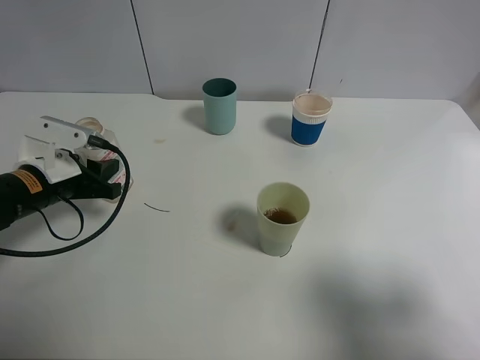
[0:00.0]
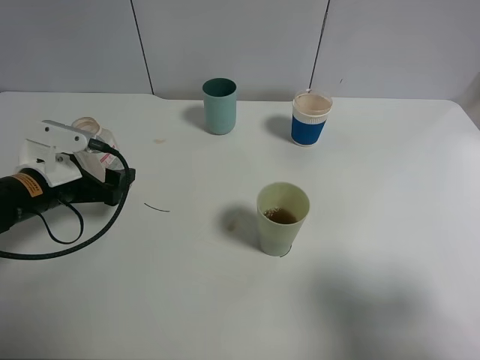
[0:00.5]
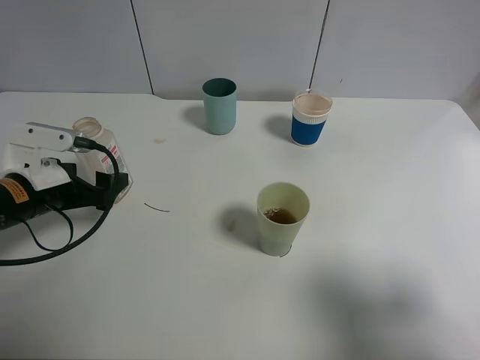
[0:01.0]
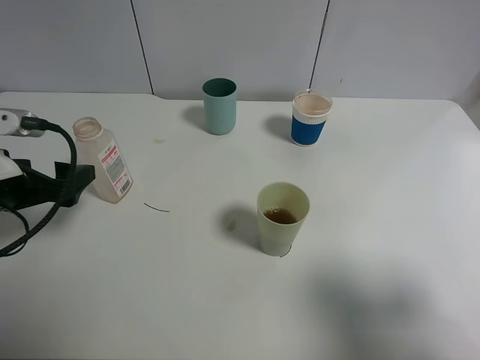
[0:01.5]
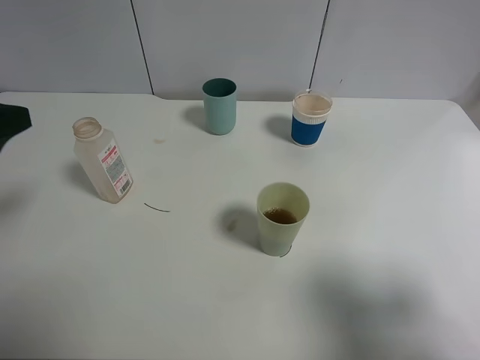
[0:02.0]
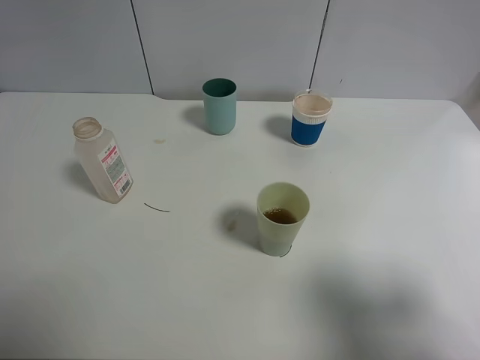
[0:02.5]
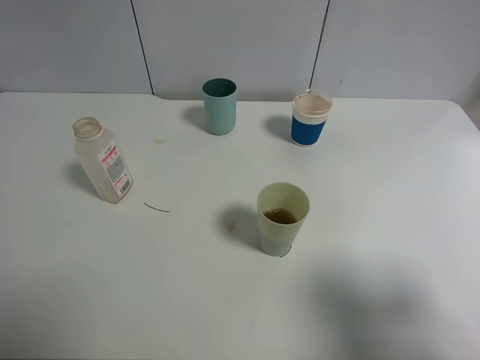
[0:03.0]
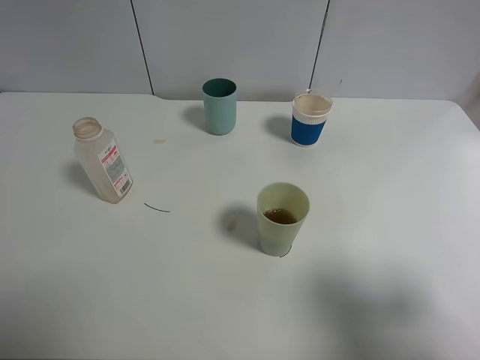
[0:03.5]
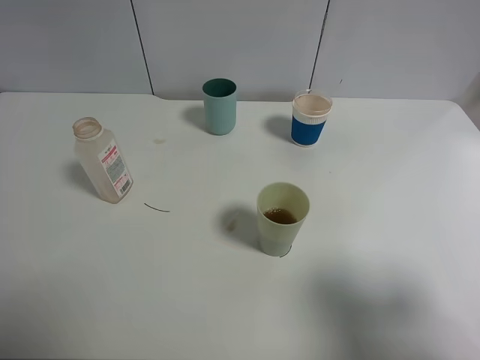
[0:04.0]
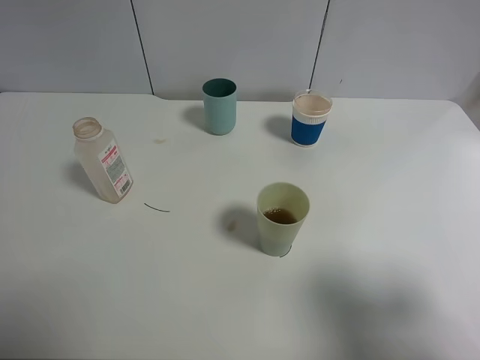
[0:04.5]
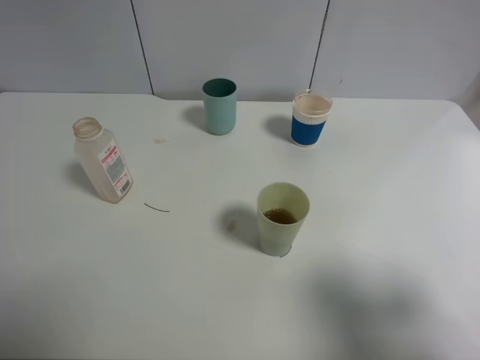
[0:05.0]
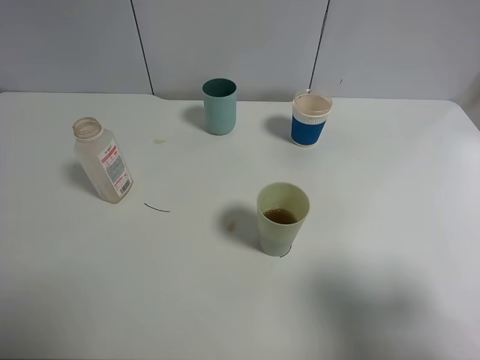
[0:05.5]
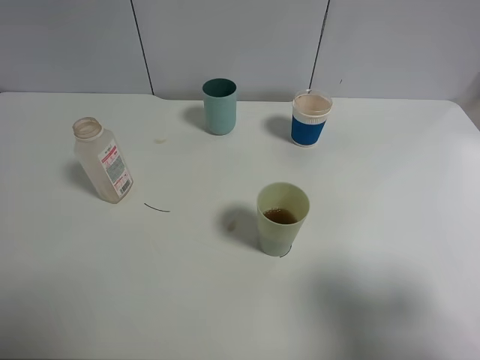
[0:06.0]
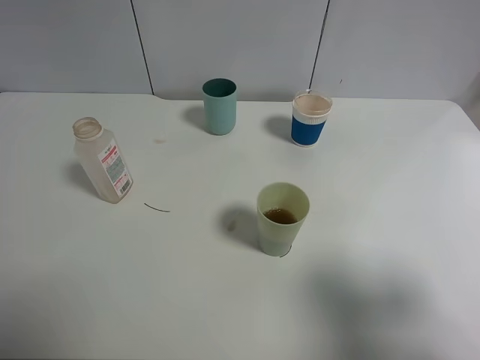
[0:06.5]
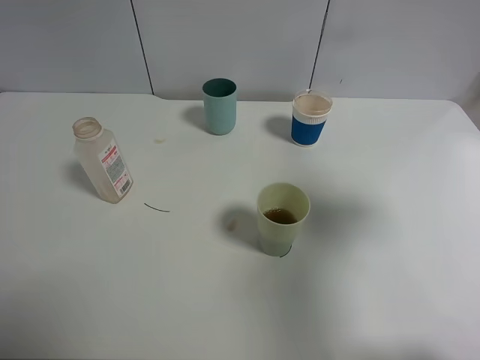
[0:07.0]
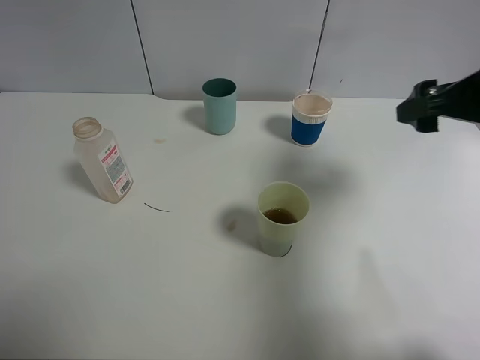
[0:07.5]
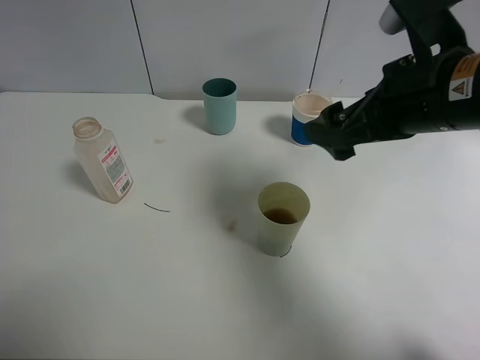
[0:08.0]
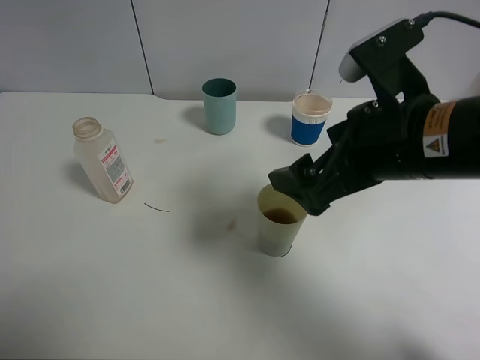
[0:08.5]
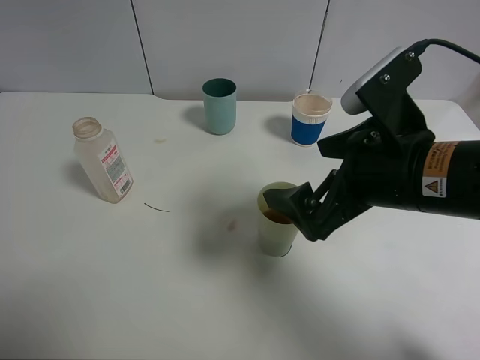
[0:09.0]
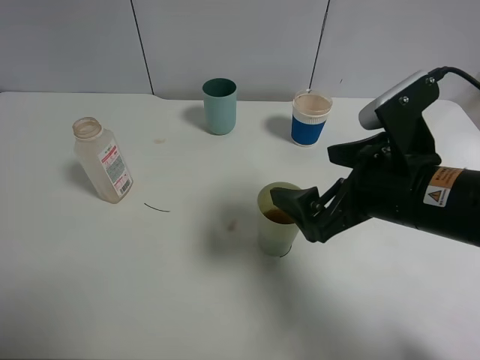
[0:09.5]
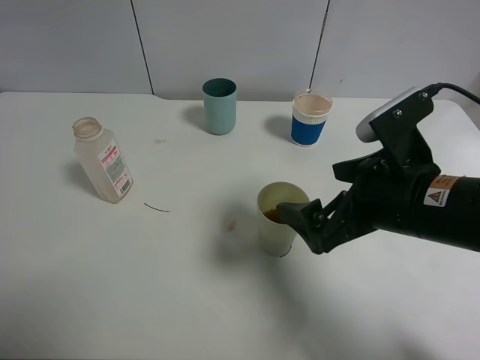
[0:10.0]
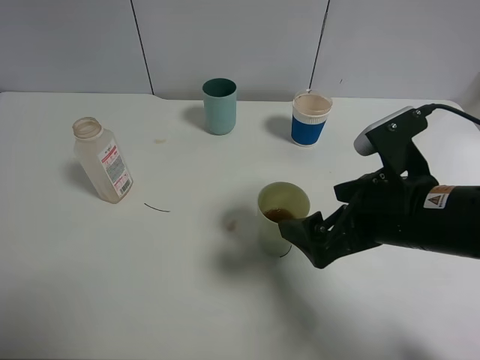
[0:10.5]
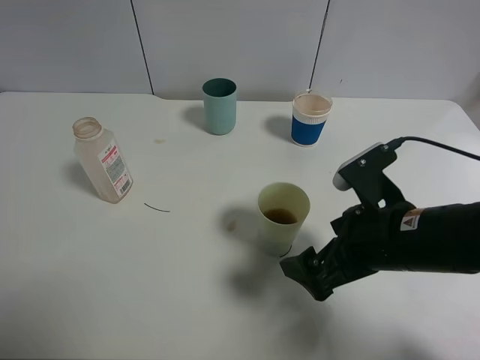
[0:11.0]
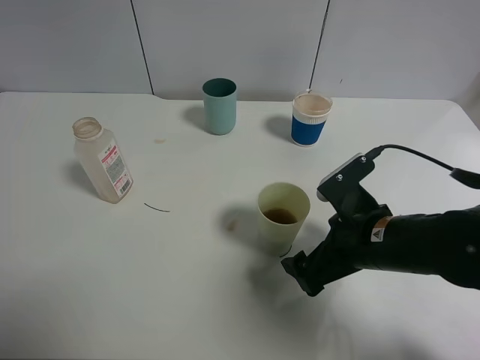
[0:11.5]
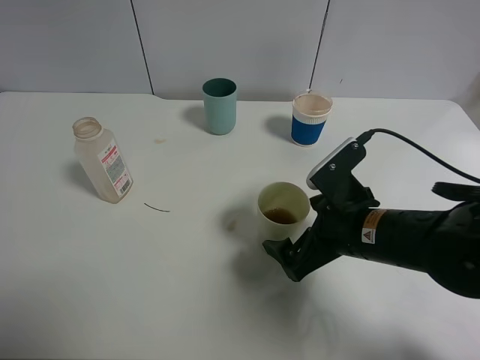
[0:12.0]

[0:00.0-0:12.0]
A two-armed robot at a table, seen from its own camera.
Task of the whole recording: use a clamp to hold the bottle of the drink, pour the beverage into a random cup, then clamp the cup containing the drink and pour the drink into another random cup.
0:00.0 to 0:02.0: The left gripper heads upward and backward, covering some 20 cm, and opens its fingers.
0:02.0 to 0:04.0: The left gripper moves backward, about 15 cm.
0:04.0 to 0:06.0: Both grippers stay about where they are.
0:06.0 to 0:08.0: The right gripper shifts some 25 cm forward and to the left.
0:08.0 to 0:10.0: The right gripper is displaced downward and backward by approximately 10 cm.
0:10.0 to 0:12.0: The right gripper goes approximately 5 cm downward.

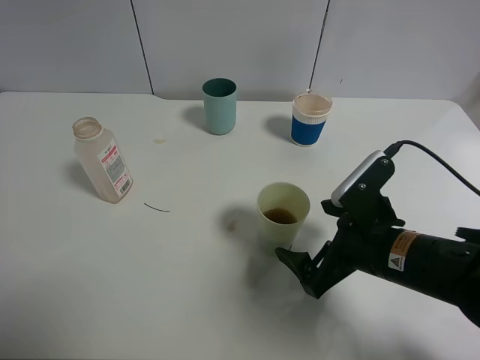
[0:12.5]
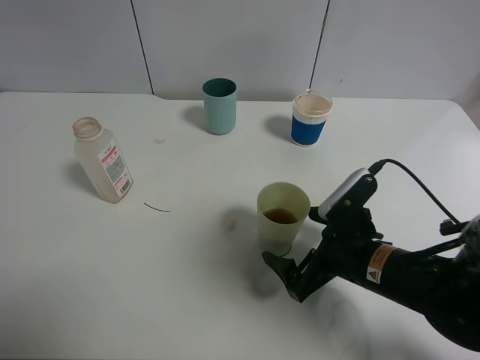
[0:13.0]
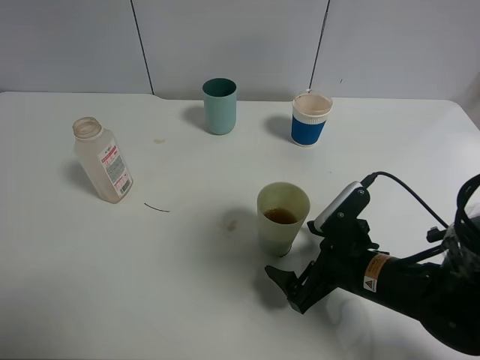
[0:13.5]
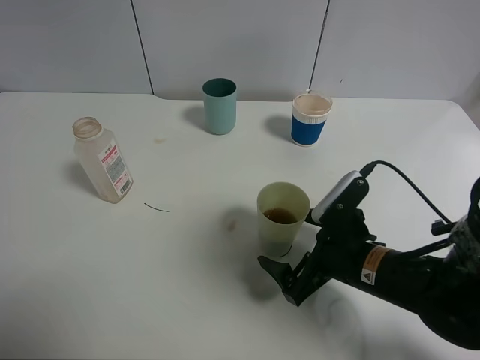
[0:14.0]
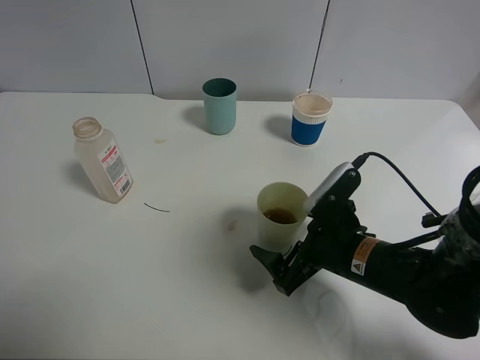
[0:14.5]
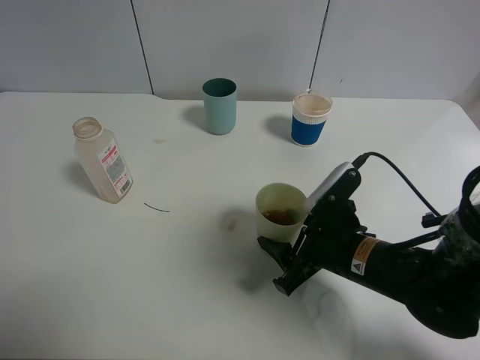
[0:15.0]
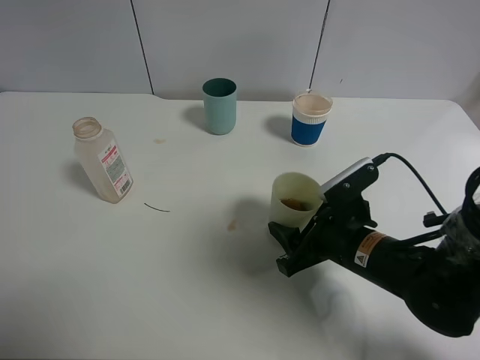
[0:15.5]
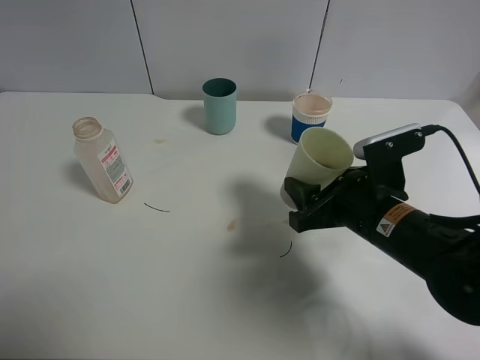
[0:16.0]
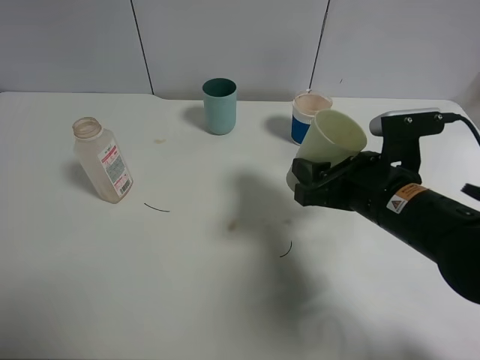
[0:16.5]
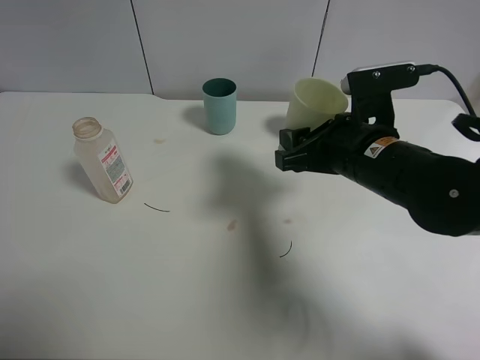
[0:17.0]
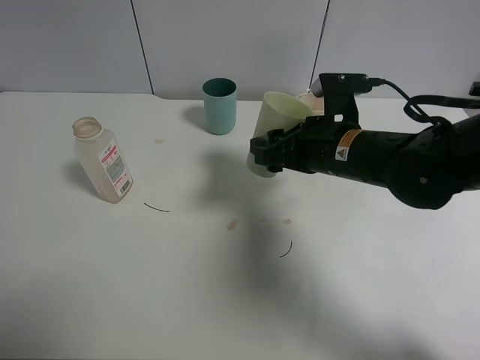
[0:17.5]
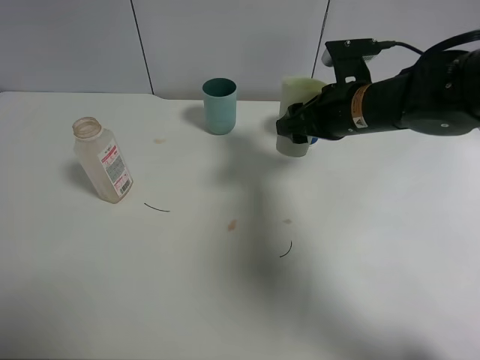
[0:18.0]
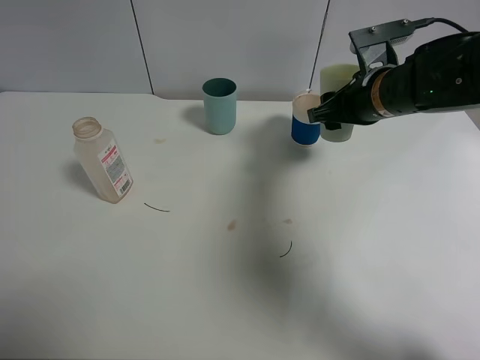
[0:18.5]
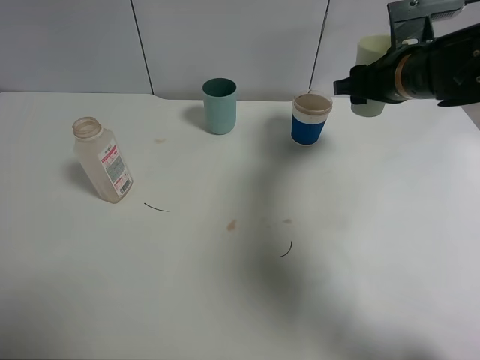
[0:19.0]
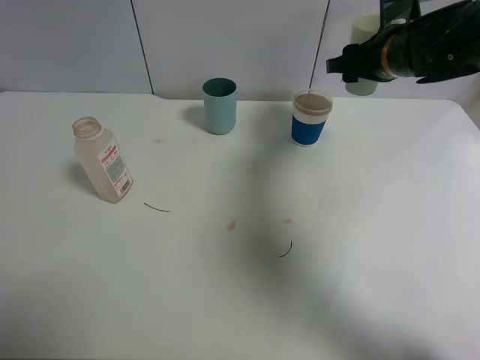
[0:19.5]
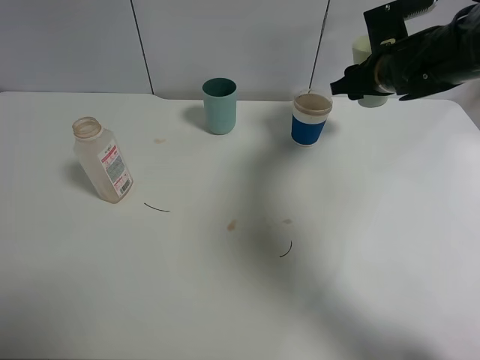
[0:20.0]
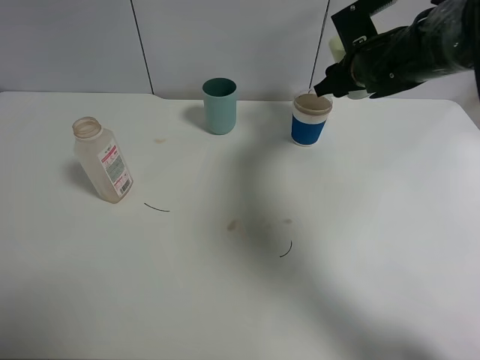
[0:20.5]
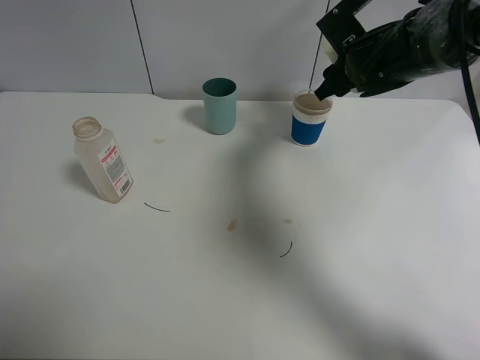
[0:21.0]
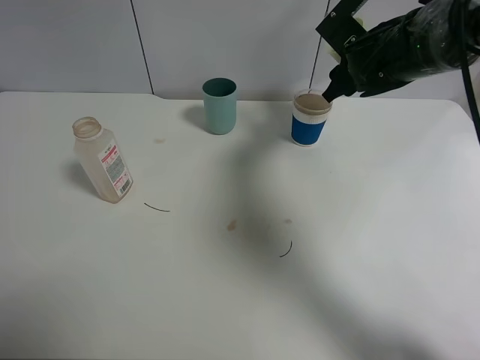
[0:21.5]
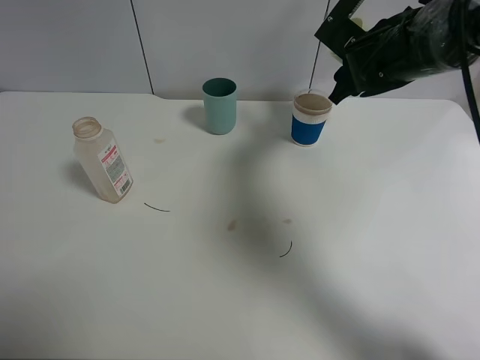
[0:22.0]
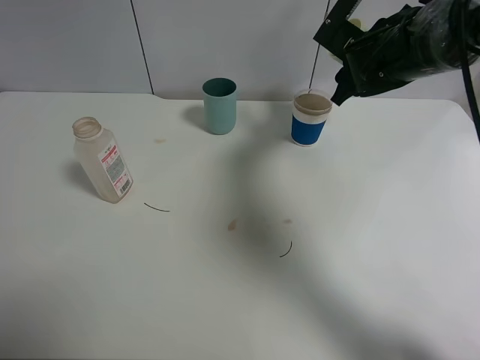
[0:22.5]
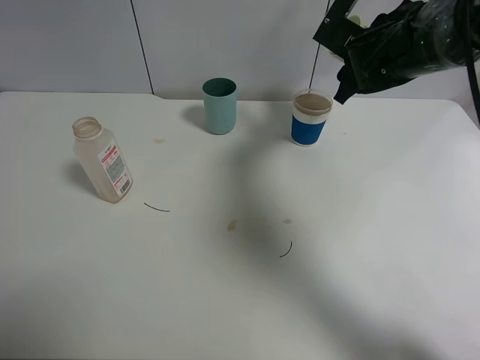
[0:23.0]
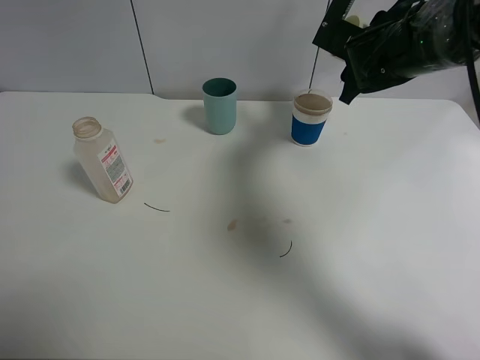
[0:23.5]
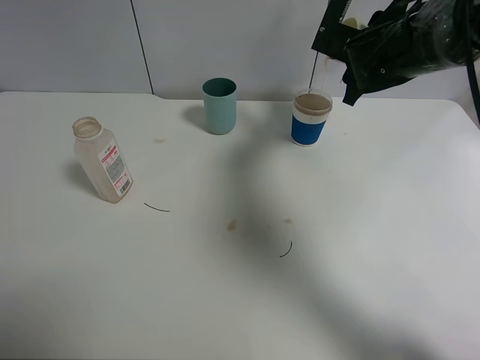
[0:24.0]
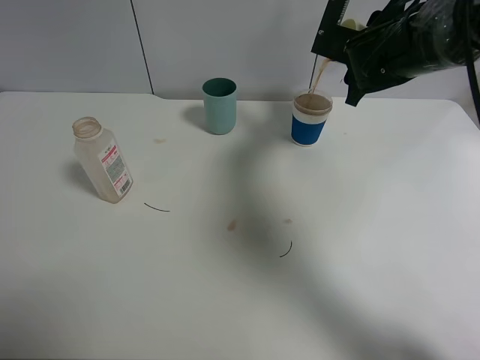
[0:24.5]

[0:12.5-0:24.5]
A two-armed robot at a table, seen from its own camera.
Task of the whole recording: use a clamp to hold the bottle of the drink, pour the beverage into a random cup, then clamp the cup containing the drink and pour the drink into another random cup.
Step, 0:12.5 to 0:16.0: Pick up the green plastic cup bottle with right gripper.
0:12.5 to 0:14.5: The grippers move only a little.
0:14.5 to 0:16.5: The right gripper is displaced upward by about 10 cm, and closes up.
0:16.5 to 0:18.5: The right gripper shifts roughly 15 cm forward.
0:18.5 to 0:20.5: The right gripper goes about 10 cm forward.
0:22.5 to 0:24.5: The grippers move only a little.

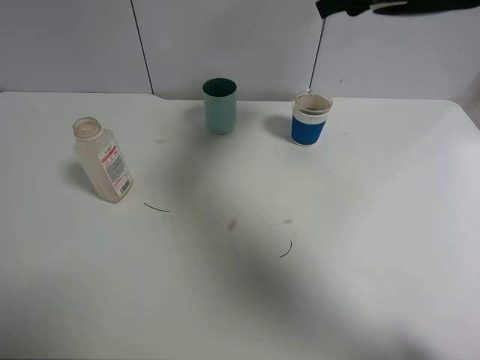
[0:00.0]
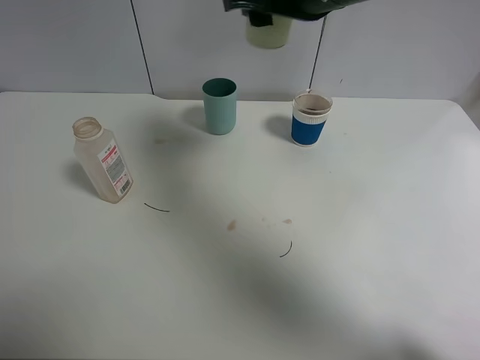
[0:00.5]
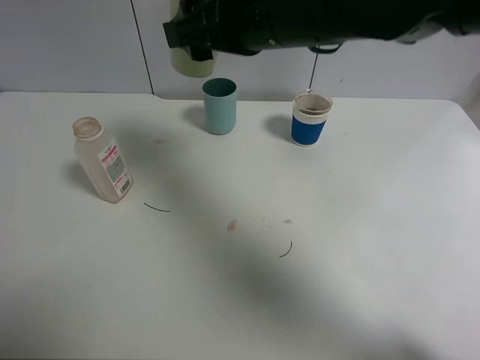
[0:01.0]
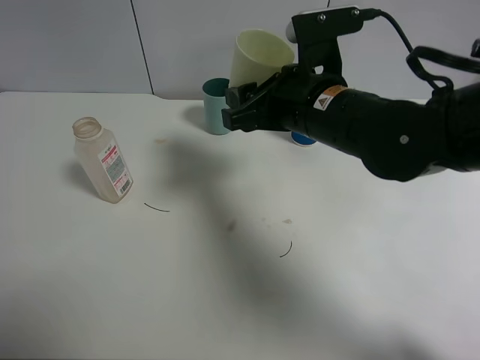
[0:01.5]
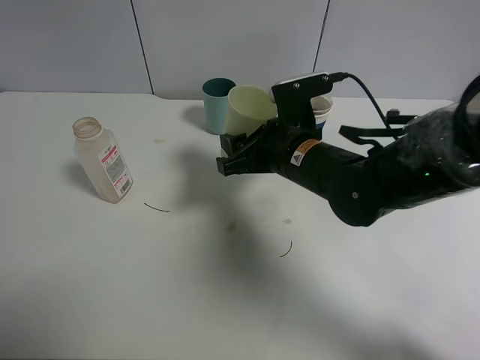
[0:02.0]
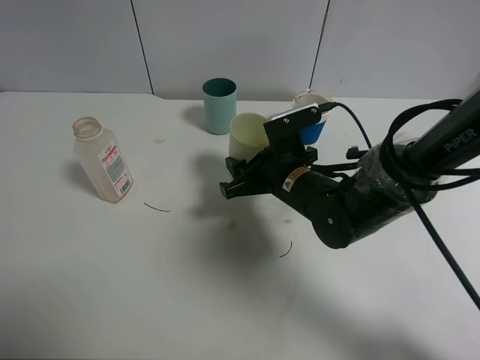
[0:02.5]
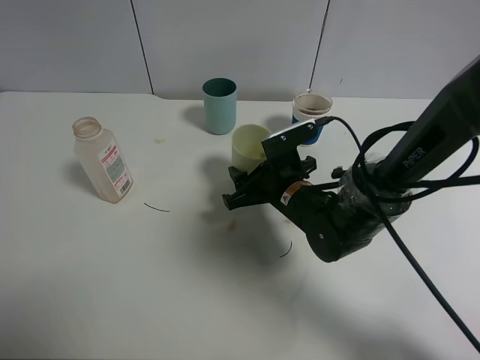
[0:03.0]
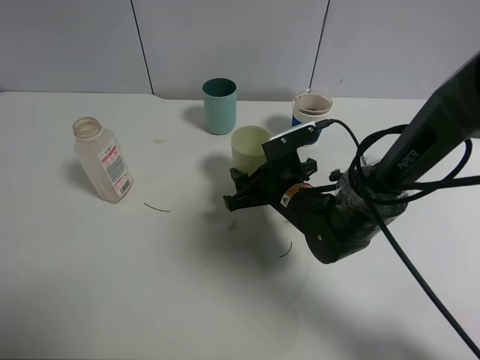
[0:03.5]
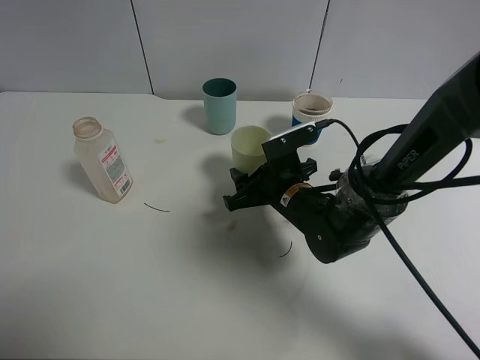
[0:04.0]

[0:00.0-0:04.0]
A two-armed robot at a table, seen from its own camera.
Task of the whole recording: use a clamp to hold the bottle of the drink, pour the beverage into a random cup, then clamp the cup containing the drink and pour the drink into another random cup.
0:00.0 to 0:02.0: The right gripper is displaced downward by about 20 cm.
0:02.0 to 0:04.0: The right gripper is displaced downward by about 10 cm.
